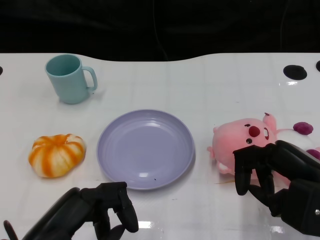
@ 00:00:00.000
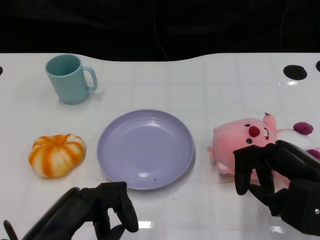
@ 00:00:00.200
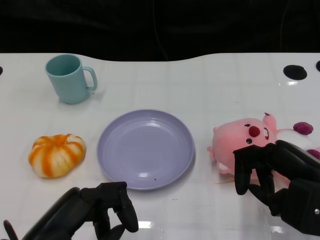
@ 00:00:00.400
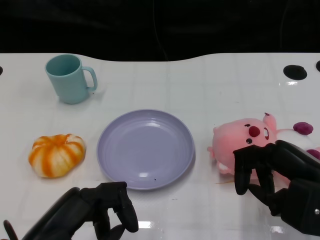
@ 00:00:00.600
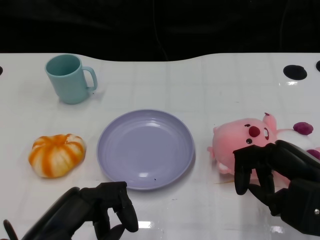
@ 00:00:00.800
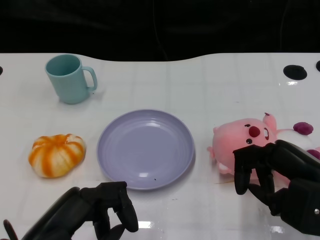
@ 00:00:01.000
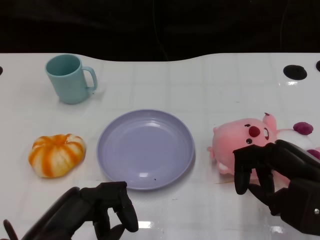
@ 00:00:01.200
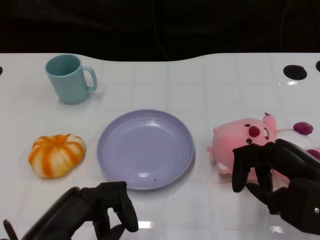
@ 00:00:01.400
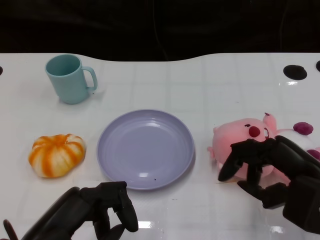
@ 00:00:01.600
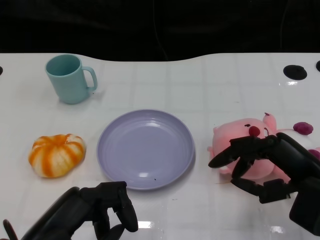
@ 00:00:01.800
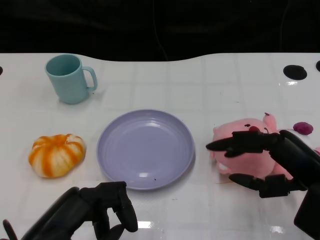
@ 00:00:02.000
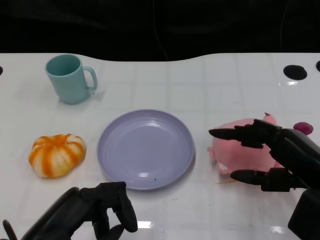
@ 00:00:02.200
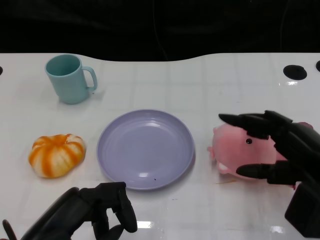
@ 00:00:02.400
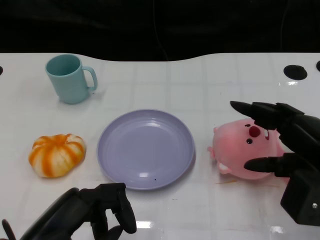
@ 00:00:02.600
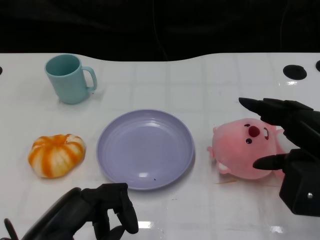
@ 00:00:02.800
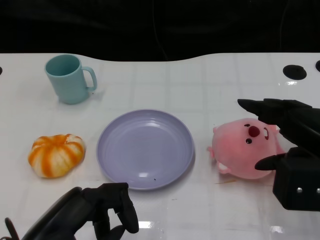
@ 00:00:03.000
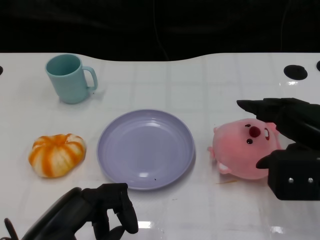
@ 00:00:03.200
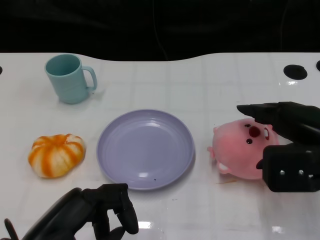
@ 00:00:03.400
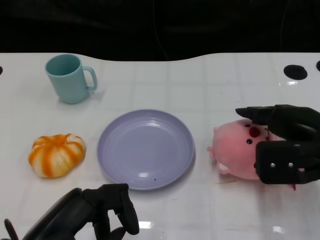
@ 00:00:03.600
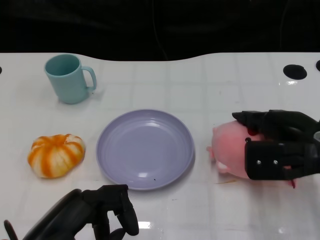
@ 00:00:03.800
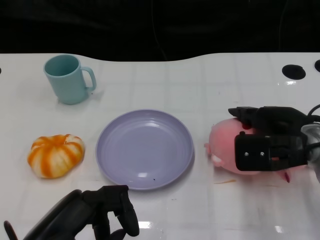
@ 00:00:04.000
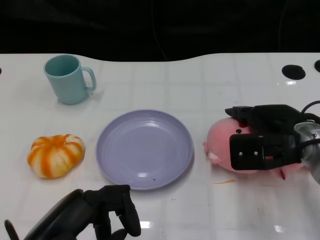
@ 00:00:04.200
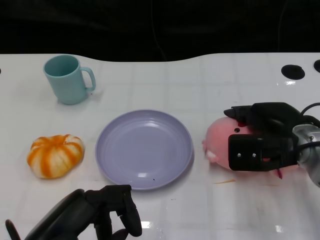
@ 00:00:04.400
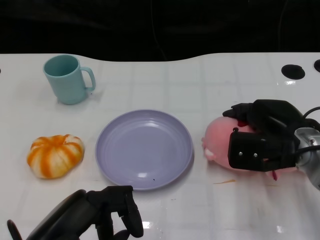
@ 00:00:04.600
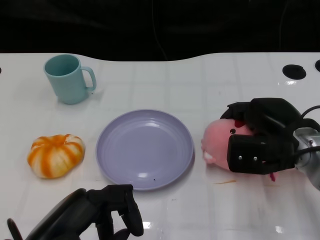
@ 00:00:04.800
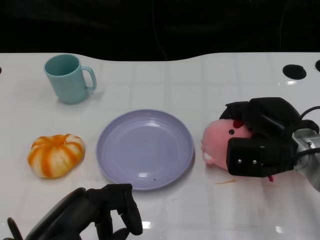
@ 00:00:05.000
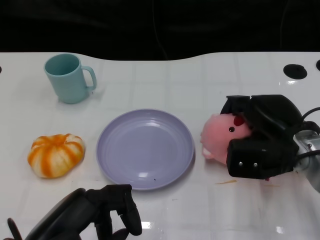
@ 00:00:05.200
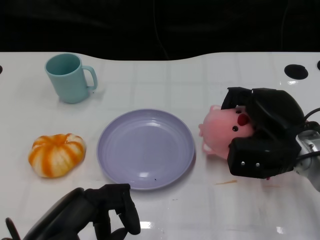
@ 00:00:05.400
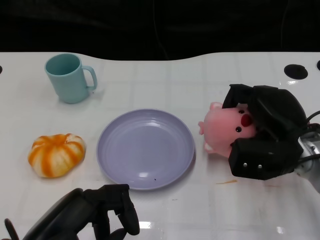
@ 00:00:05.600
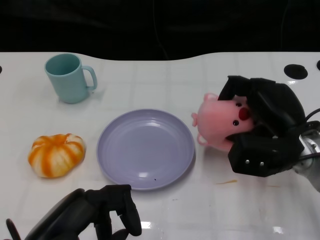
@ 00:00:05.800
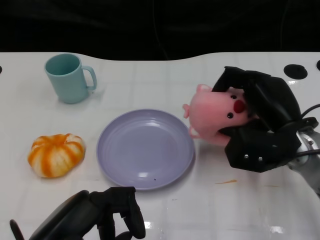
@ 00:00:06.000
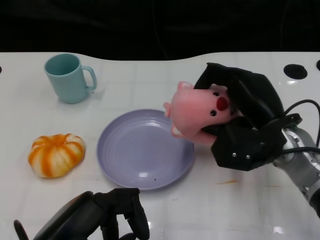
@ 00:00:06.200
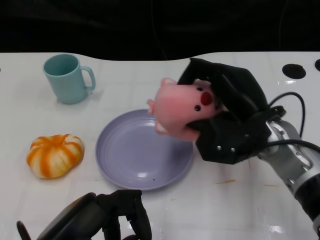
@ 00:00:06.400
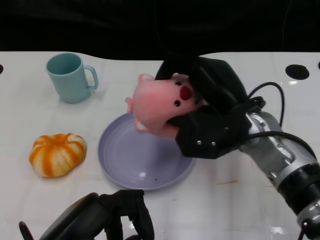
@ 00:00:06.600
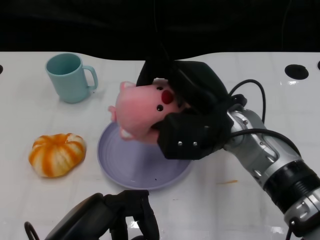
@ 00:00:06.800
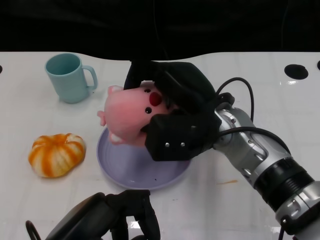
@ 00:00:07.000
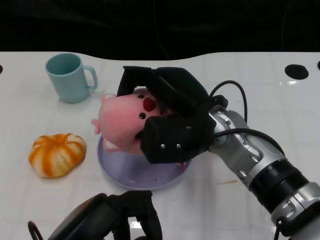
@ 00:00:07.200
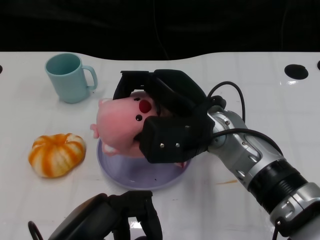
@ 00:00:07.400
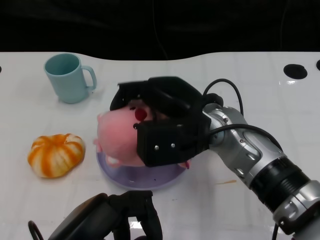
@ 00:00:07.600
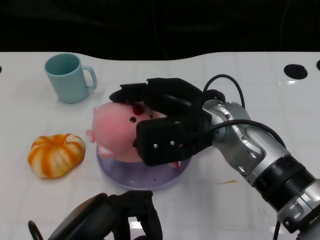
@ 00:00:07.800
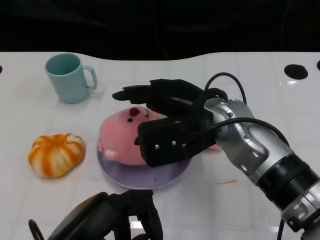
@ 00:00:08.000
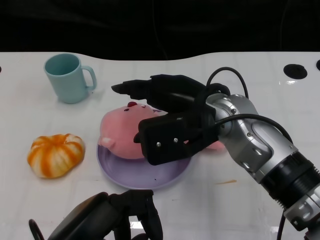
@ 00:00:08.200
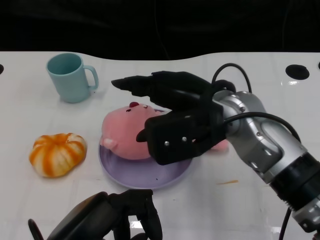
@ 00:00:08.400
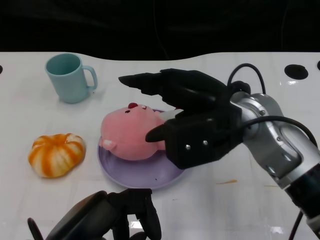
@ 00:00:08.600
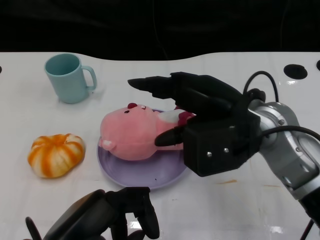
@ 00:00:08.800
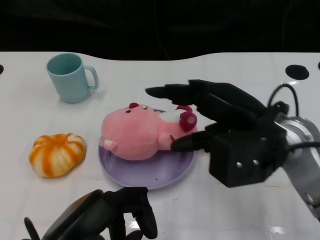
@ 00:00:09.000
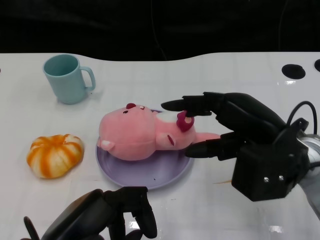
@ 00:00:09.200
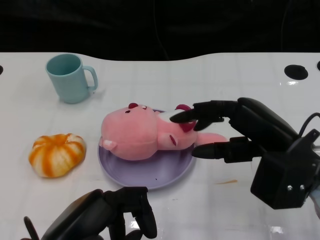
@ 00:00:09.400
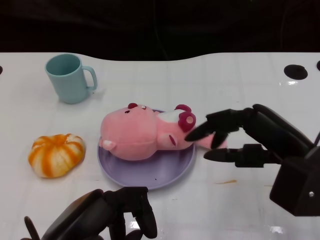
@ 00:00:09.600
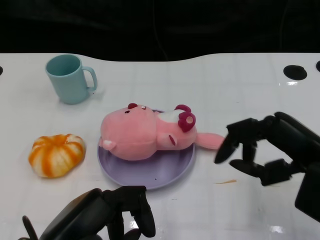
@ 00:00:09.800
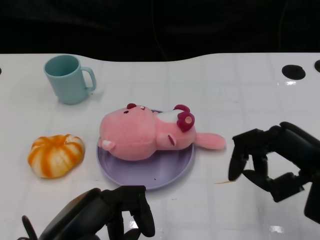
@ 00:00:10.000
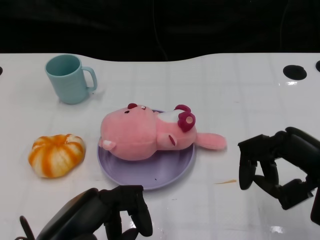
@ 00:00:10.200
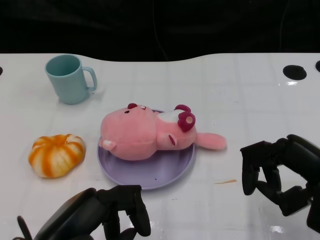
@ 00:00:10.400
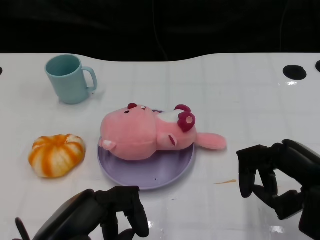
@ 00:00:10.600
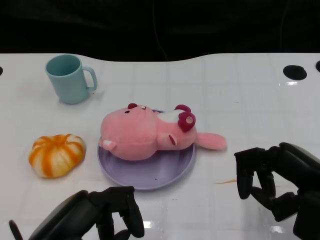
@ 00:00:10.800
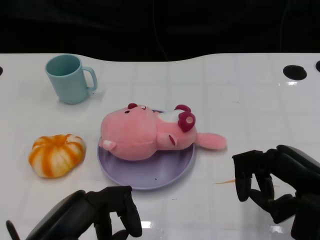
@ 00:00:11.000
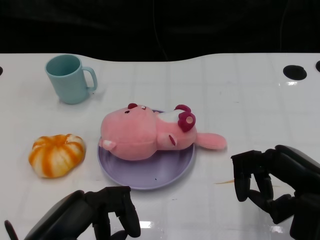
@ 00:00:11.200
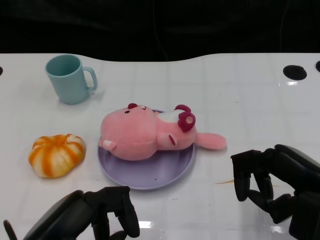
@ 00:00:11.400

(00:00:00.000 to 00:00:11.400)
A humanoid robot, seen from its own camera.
Task of the whole recording: Pick up the doll on the other side of the plate and place it into the plate.
Step, 00:00:01.400 - 00:00:06.200: Grasp the pink doll with the right gripper.
Step, 00:00:06.400 - 00:00:08.400: Place the pink doll into the plate with the right gripper.
00:00:01.400 - 00:00:02.800: There are only small adjustments of the hands.
00:00:02.800 - 00:00:04.200: The right hand shifts roughly 10 cm forward.
00:00:05.600 - 00:00:07.200: The right hand travels to the left and upward by roughly 15 cm.
00:00:07.200 - 00:00:08.600: The right hand changes place by some 5 cm.
00:00:08.600 - 00:00:10.000: The right hand shifts roughly 15 cm to the right and backward.
00:00:10.000 - 00:00:11.400: The hands make only small movements.
